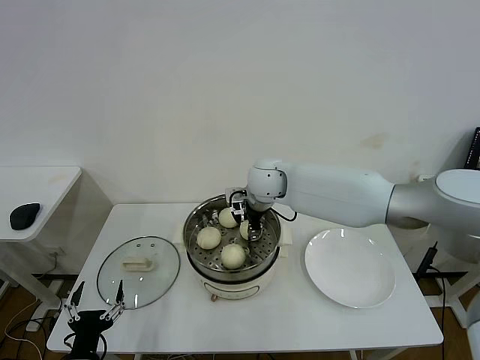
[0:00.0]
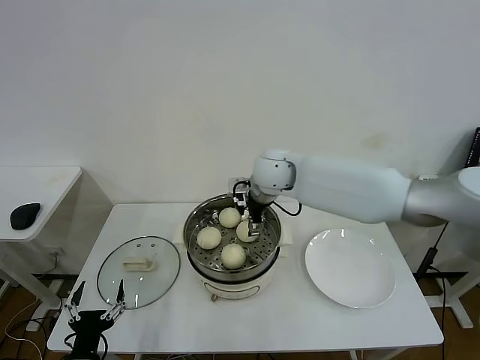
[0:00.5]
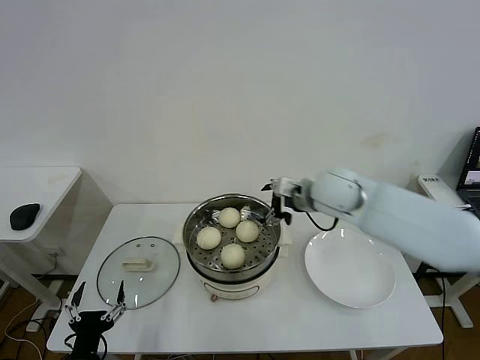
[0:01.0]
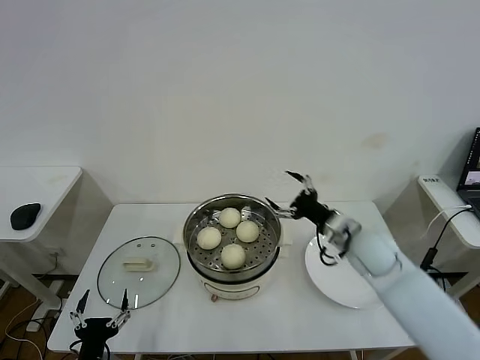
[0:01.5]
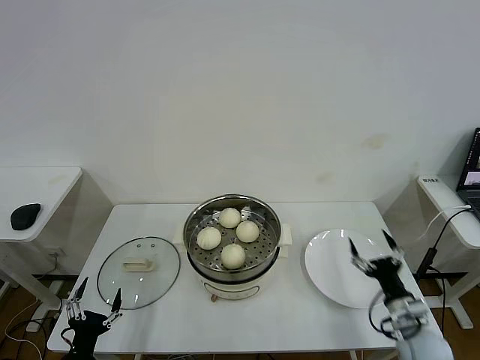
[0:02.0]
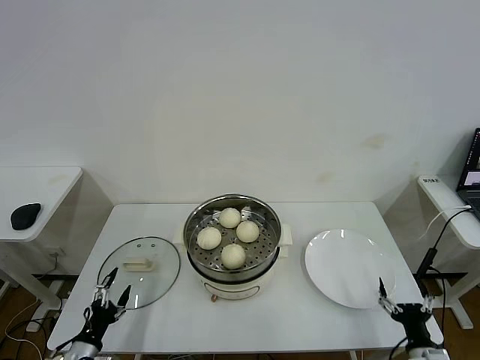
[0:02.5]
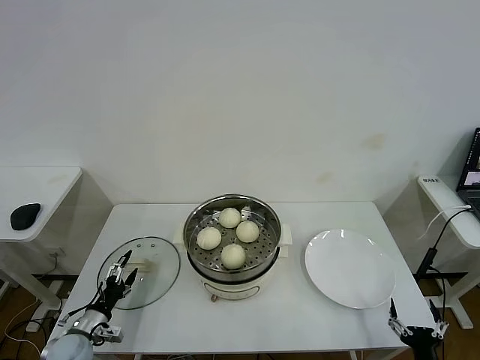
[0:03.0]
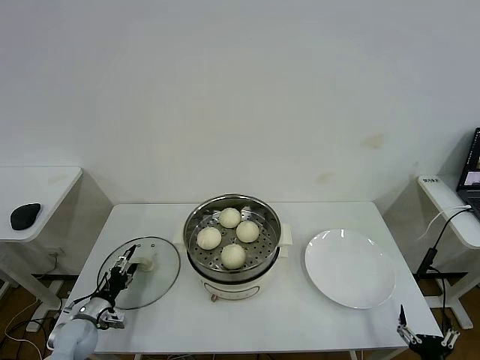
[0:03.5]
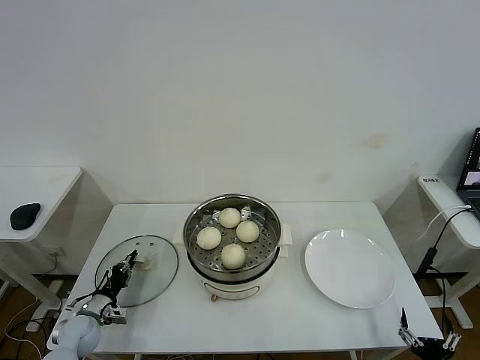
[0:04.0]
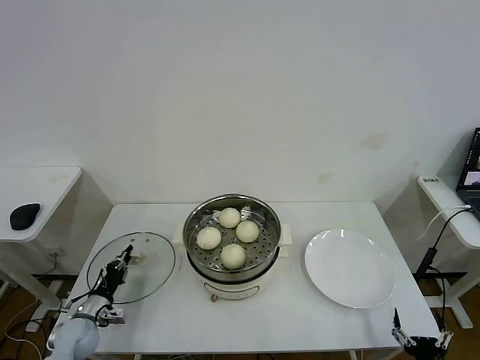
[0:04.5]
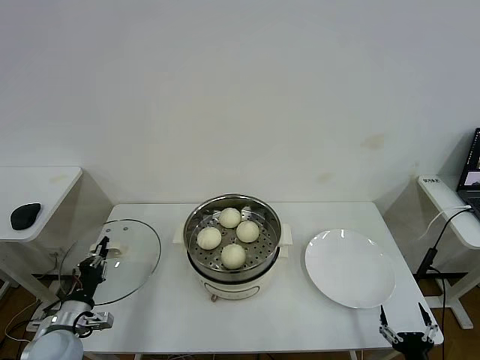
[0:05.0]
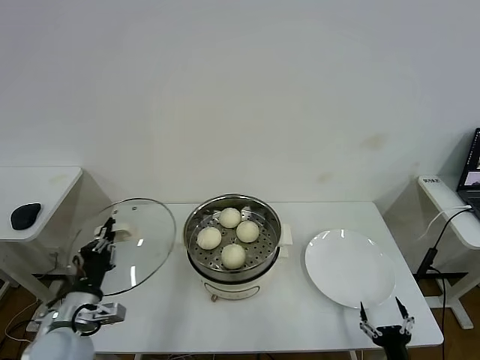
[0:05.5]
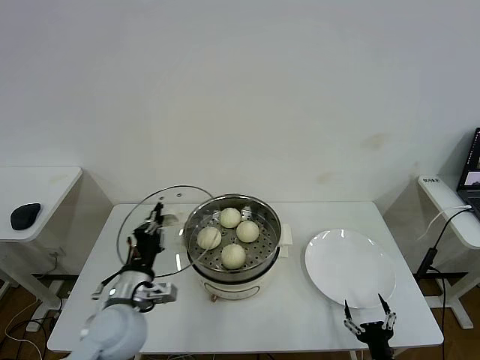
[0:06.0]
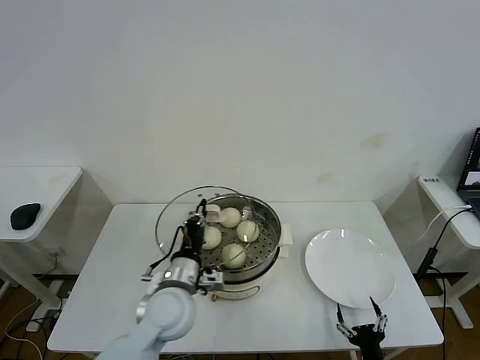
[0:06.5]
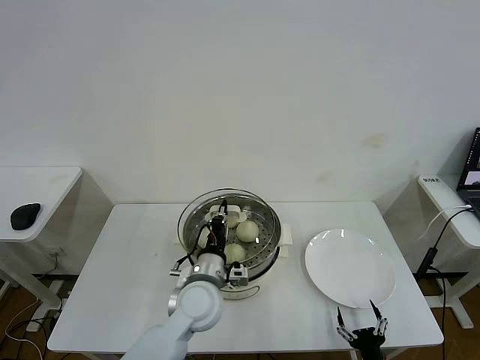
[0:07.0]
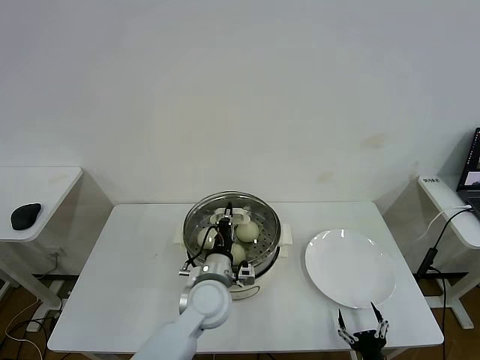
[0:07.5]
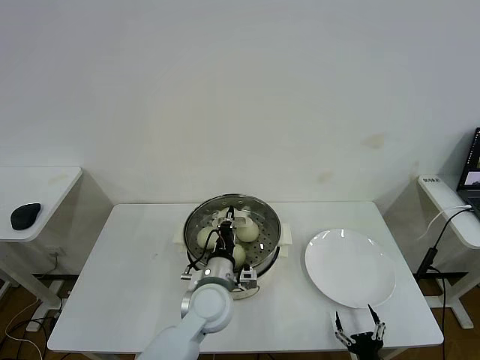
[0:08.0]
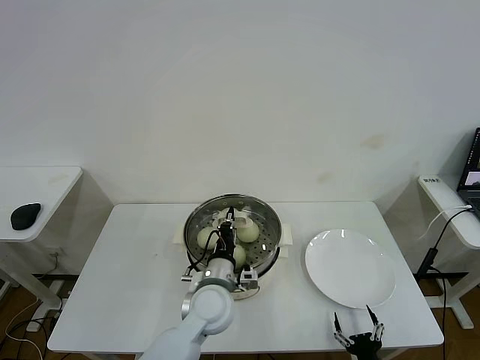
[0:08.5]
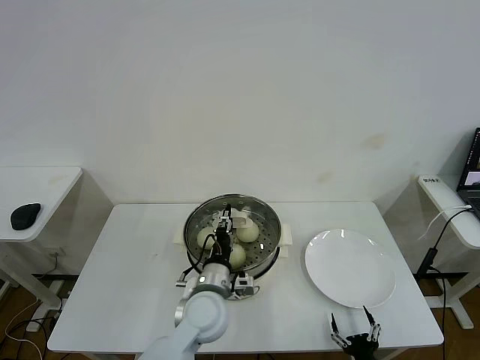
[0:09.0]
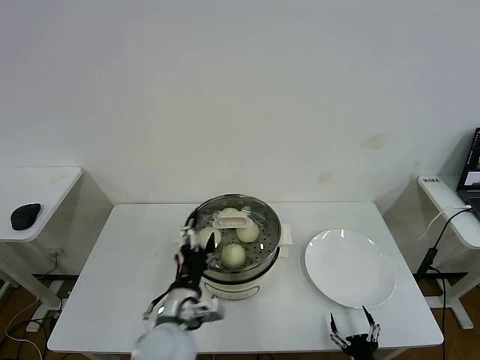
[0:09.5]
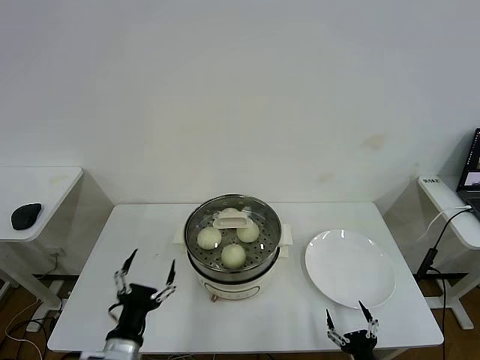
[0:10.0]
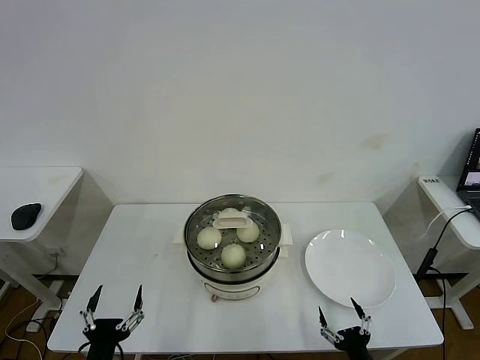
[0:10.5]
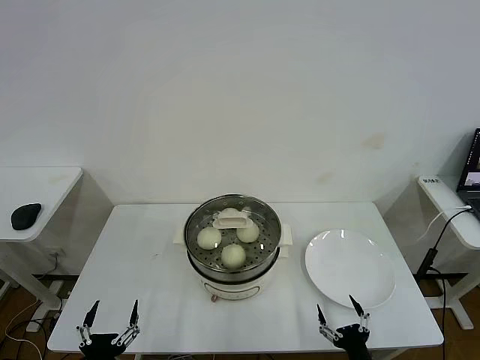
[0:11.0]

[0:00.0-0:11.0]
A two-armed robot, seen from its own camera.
Step, 0:00.5 to 0:04.0: Grasp the pot lid with left gripper.
Step, 0:04.5 to 0:09.0: Place the pot lid on the steamer with left gripper.
0:00.0 to 0:02.0: The right gripper goes approximately 50 cm to the right, backward and downward, and opens up.
0:02.0 to 0:03.5: The right gripper goes approximately 20 cm backward and downward. The left gripper heads forward and to the left, covering roughly 20 cm.
0:03.5 to 0:05.5: The left gripper moves upward, to the right and backward, about 20 cm, and closes its fingers.
0:05.5 to 0:07.5: The right gripper moves roughly 5 cm; the left gripper moves to the right and forward, approximately 30 cm.
0:07.5 to 0:09.0: There are only small adjustments of the grippers.
0:09.0 to 0:11.0: The right gripper goes about 5 cm upward, while the left gripper is displaced backward and to the left by some 30 cm, and opens its fingers.

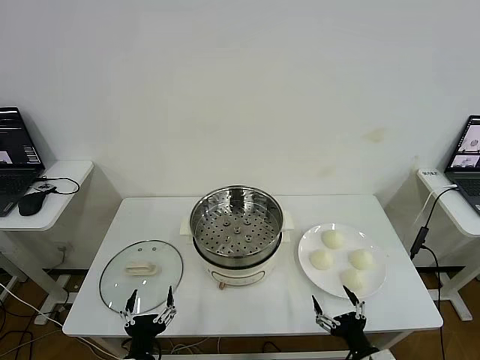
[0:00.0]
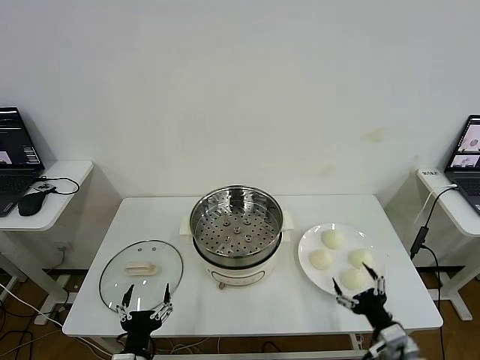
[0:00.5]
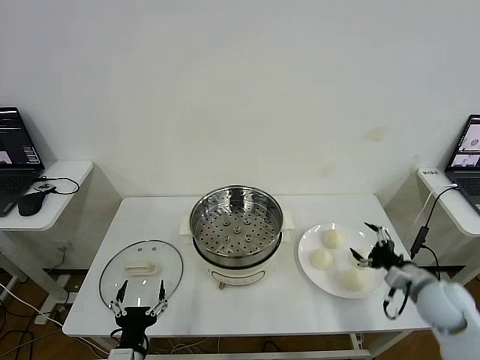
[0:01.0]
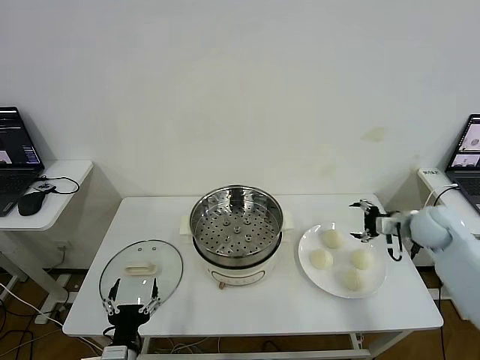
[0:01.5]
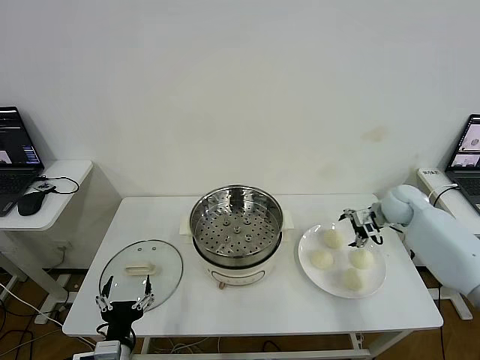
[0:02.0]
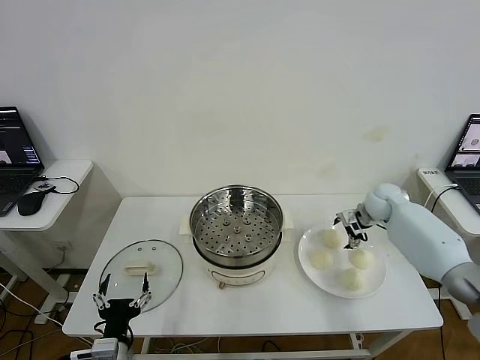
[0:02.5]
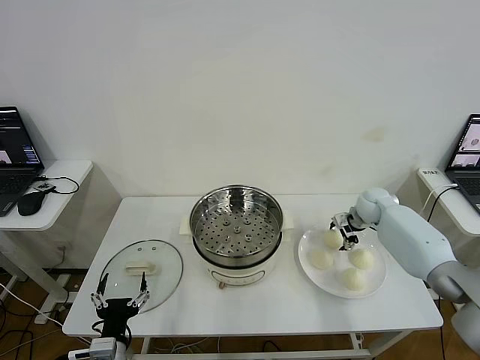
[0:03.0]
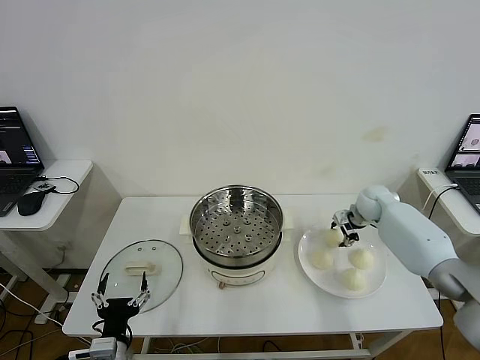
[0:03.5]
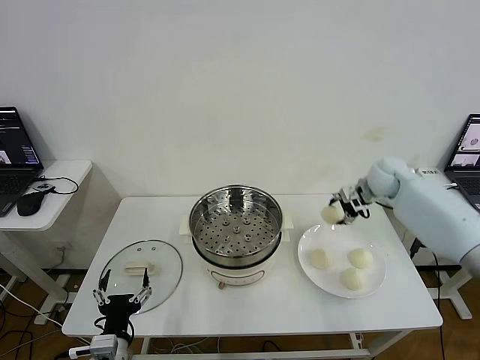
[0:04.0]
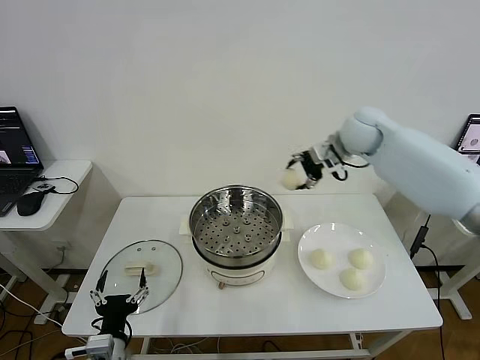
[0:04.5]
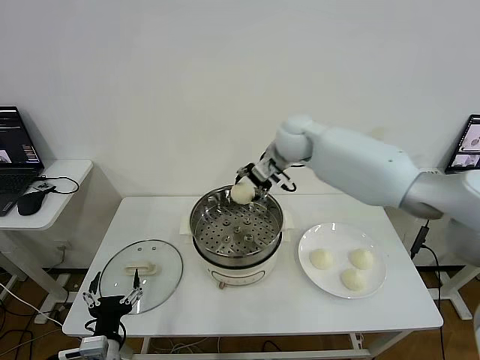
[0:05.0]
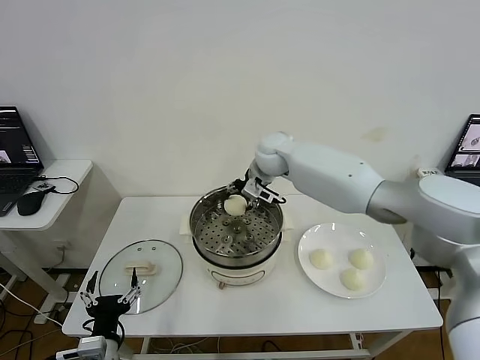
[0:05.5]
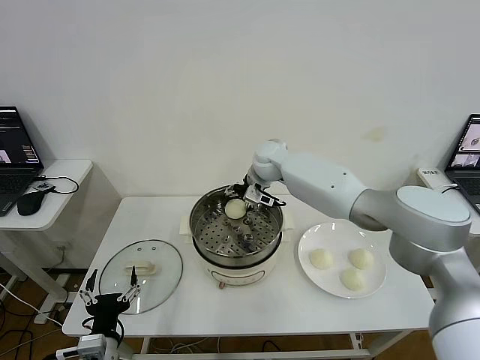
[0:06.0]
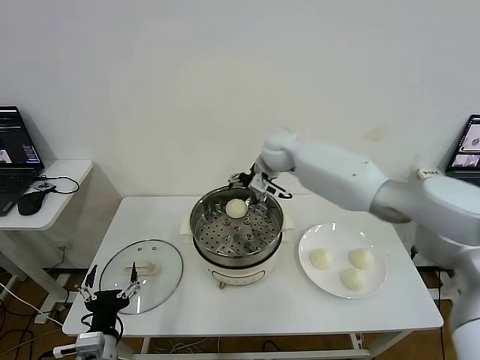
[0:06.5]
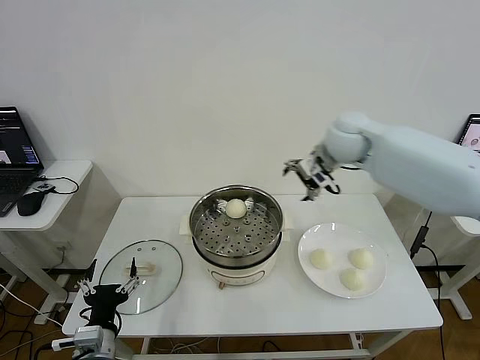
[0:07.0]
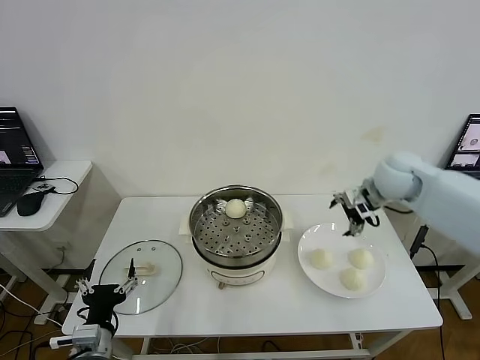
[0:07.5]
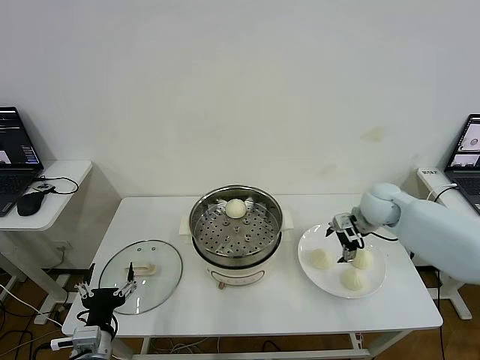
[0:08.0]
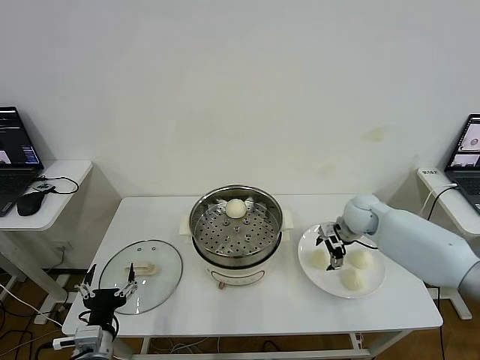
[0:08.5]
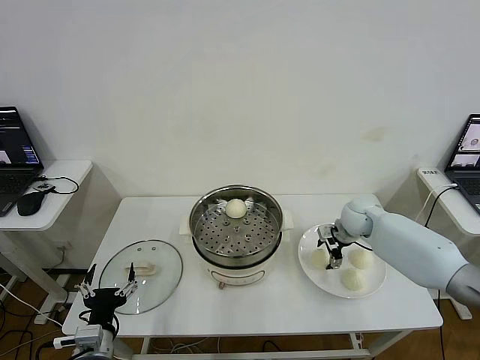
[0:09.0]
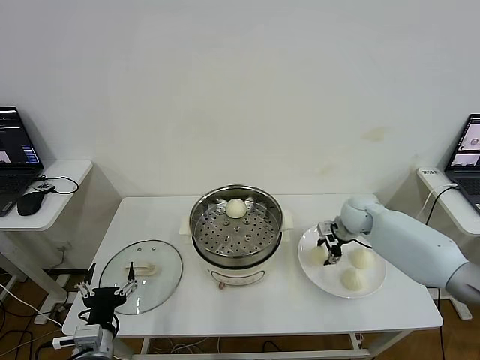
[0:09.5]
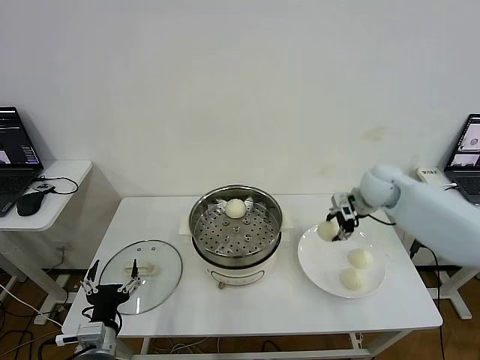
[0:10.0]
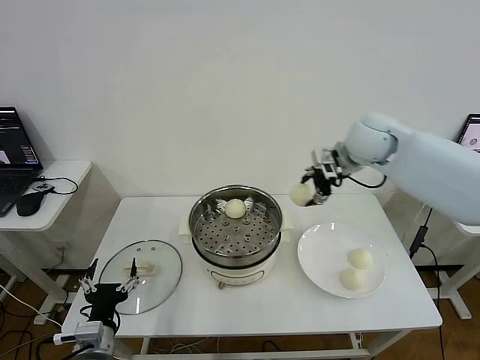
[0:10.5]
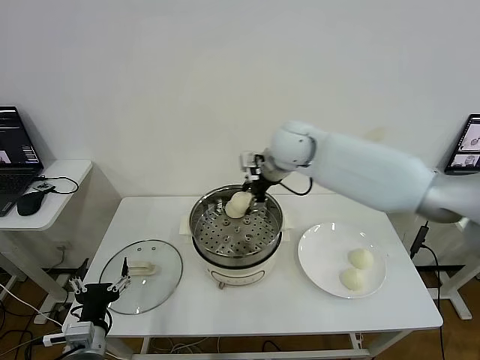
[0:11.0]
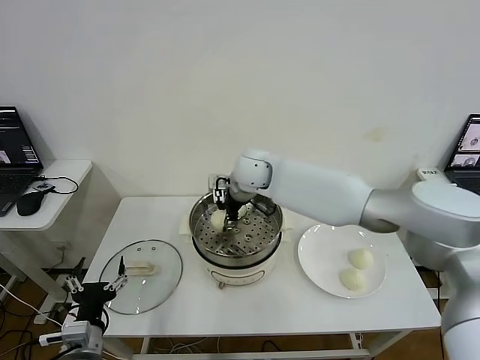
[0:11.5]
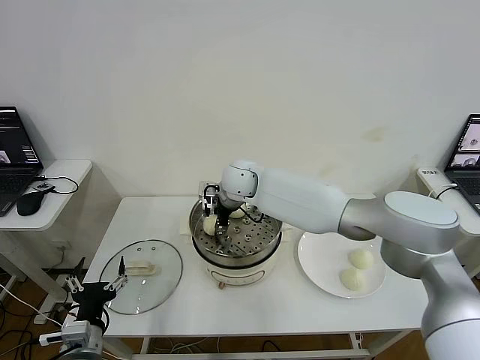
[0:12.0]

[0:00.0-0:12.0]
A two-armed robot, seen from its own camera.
Step, 0:00.0 to 0:03.0: Grasp the baozi in the plate with right gripper.
Step, 0:03.5 to 0:06.0: Place the baozi on the steamer with right gripper.
Step, 0:06.5 to 0:09.0: Grasp the baozi in the plate with right gripper.
0:02.0 to 0:04.0: The right gripper moves upward, approximately 10 cm, and closes its fingers.
0:04.0 to 0:06.0: The right gripper moves to the left, approximately 30 cm, and opens up.
0:06.0 to 0:08.0: The right gripper goes some 25 cm to the right and backward.
0:08.0 to 0:10.0: The right gripper is displaced upward by some 5 cm, and closes up.
0:10.0 to 0:12.0: The right gripper is displaced to the left by approximately 35 cm.

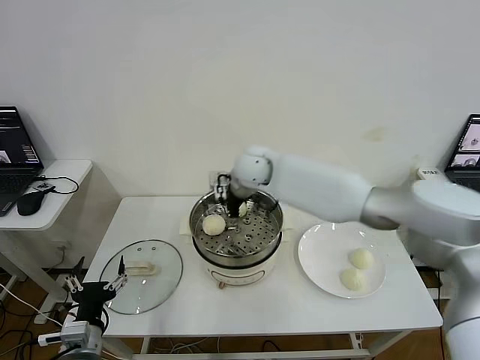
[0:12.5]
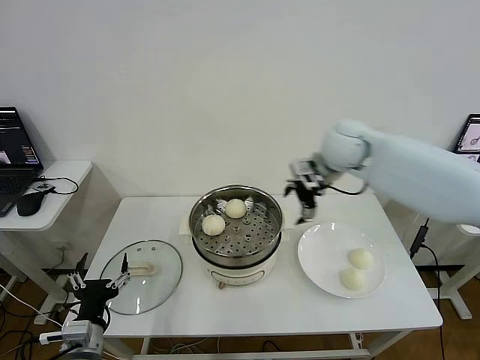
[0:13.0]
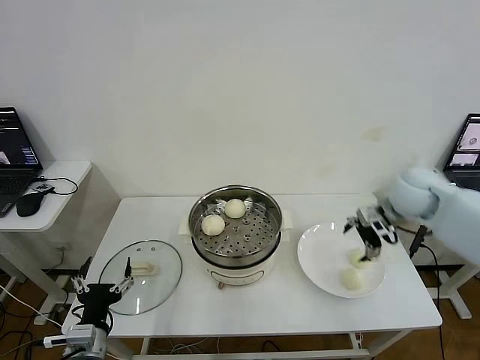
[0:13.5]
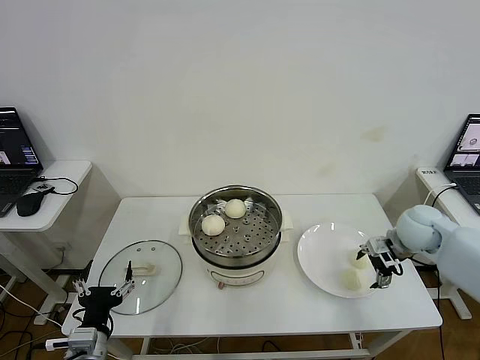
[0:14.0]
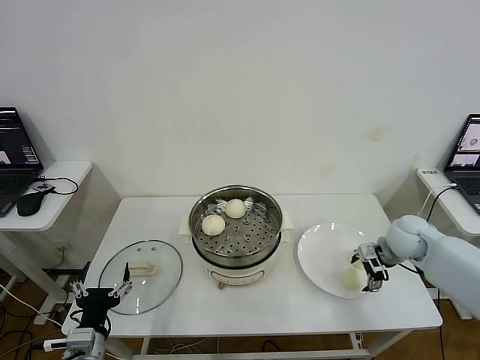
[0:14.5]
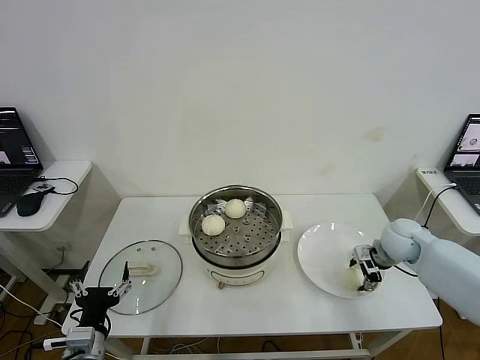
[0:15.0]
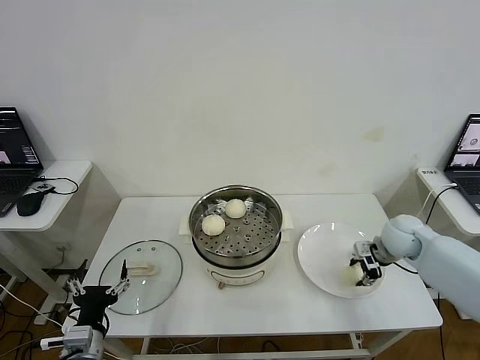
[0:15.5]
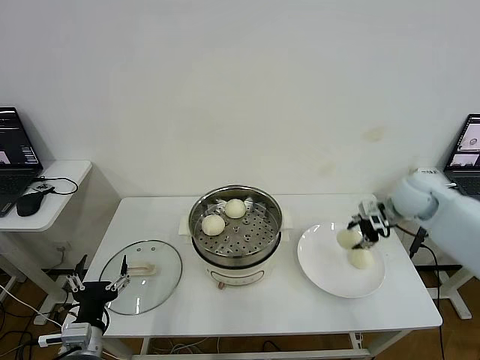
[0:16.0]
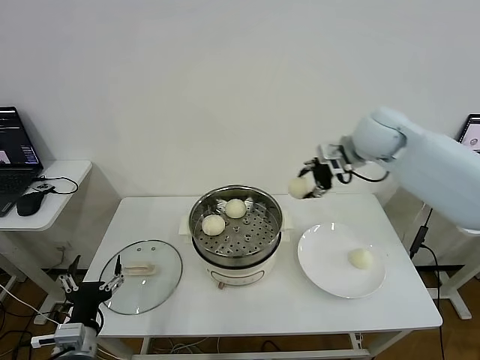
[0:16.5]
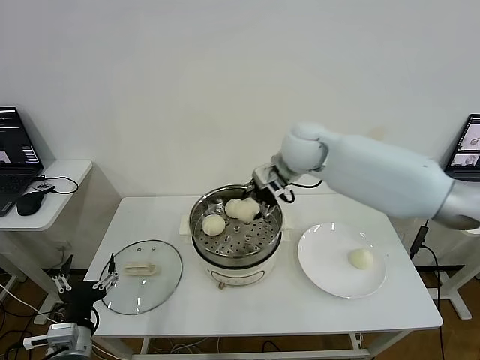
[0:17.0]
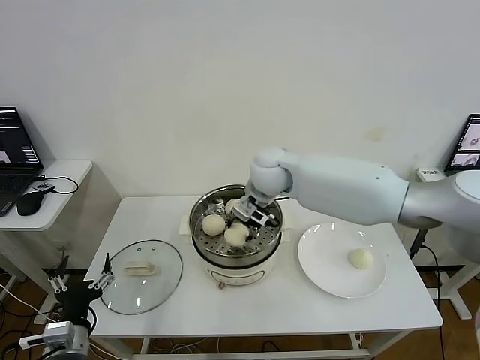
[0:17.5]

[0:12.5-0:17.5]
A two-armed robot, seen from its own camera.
Step, 0:12.5 to 0:15.0: Grasp the baozi in the plate with right gripper.
0:12.5 to 0:15.0: The right gripper travels to the right and downward by about 40 cm, and closes its fingers.
0:15.0 to 0:17.5: The right gripper heads to the left and upward, covering approximately 35 cm.
